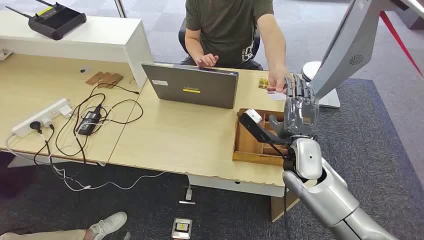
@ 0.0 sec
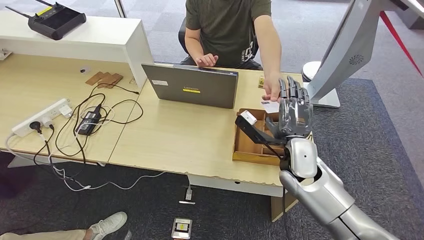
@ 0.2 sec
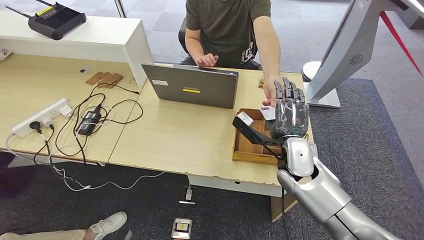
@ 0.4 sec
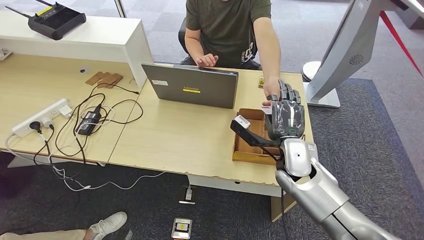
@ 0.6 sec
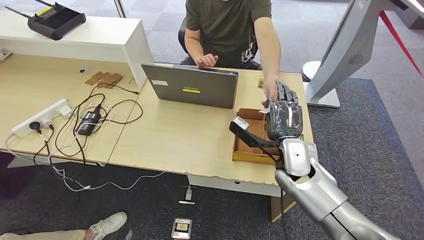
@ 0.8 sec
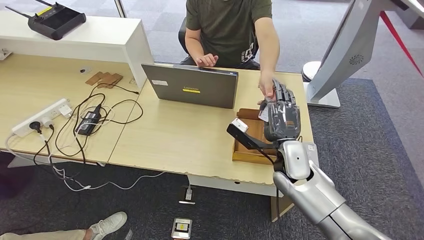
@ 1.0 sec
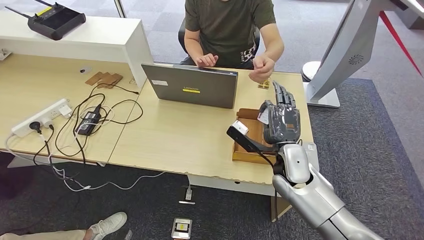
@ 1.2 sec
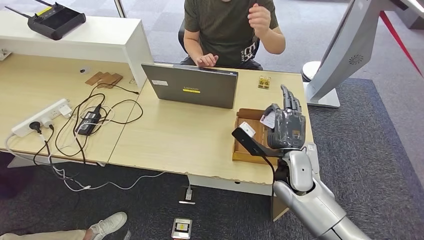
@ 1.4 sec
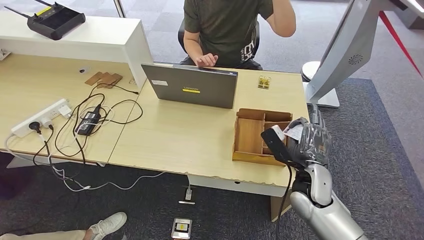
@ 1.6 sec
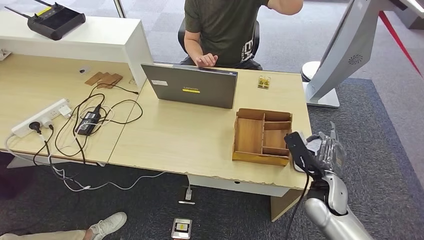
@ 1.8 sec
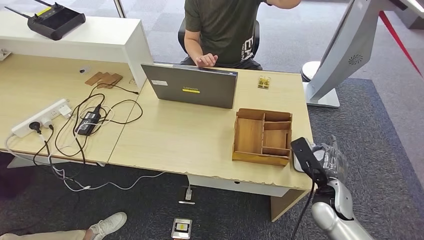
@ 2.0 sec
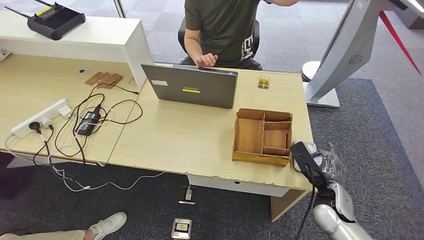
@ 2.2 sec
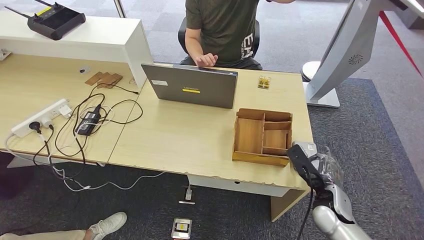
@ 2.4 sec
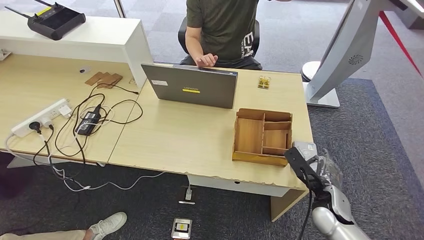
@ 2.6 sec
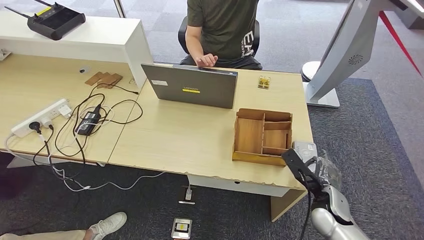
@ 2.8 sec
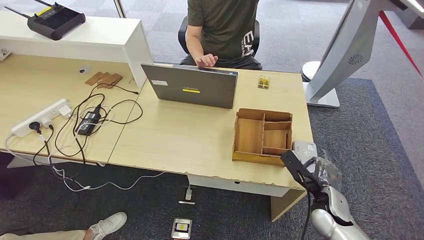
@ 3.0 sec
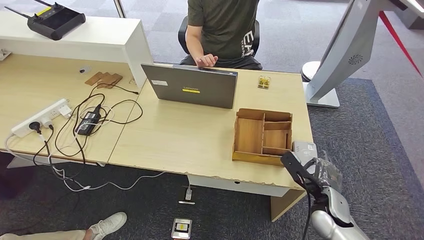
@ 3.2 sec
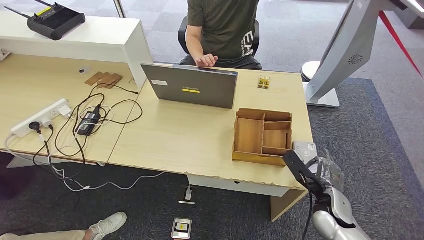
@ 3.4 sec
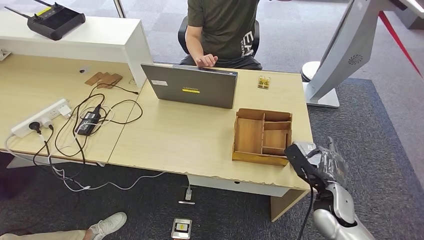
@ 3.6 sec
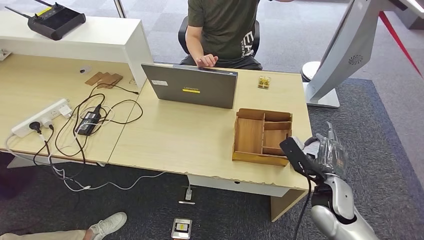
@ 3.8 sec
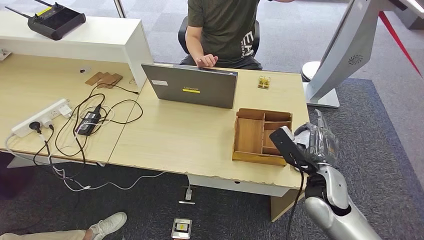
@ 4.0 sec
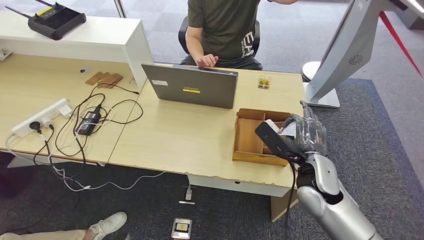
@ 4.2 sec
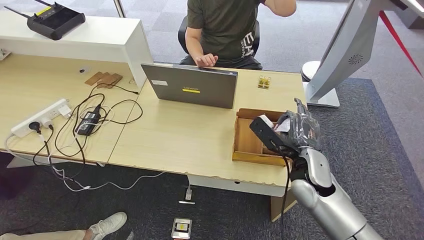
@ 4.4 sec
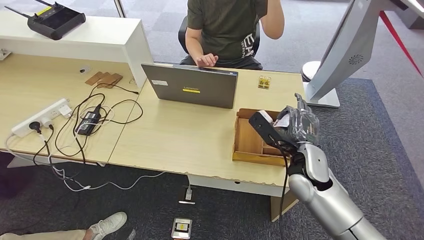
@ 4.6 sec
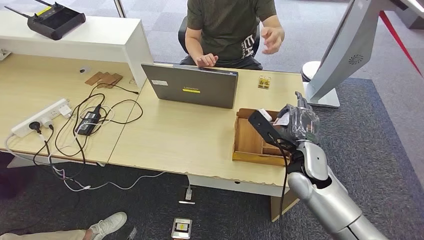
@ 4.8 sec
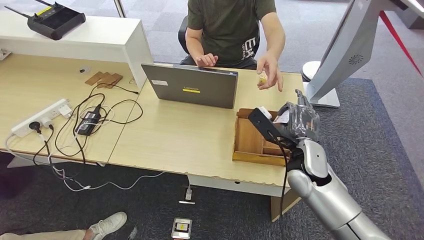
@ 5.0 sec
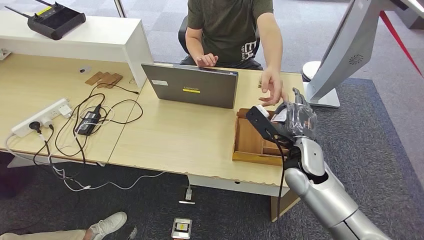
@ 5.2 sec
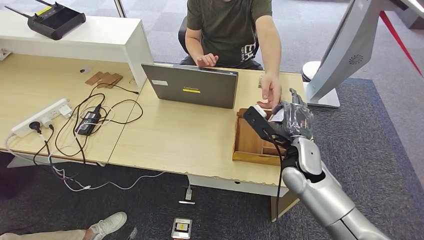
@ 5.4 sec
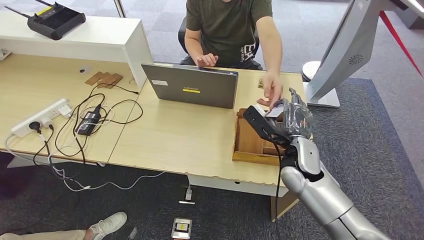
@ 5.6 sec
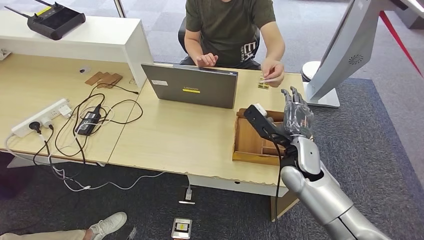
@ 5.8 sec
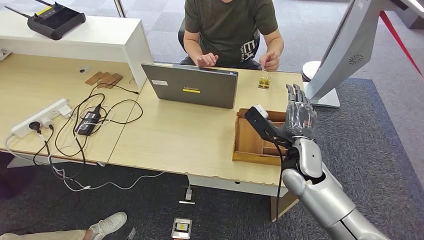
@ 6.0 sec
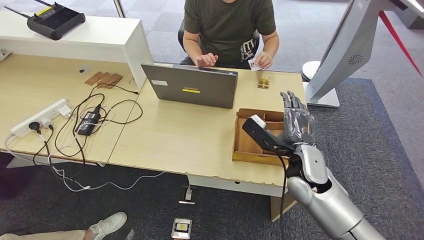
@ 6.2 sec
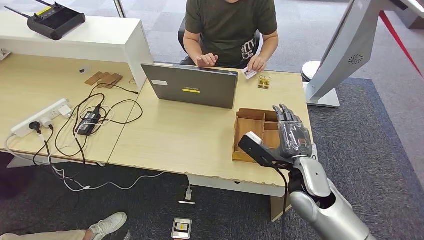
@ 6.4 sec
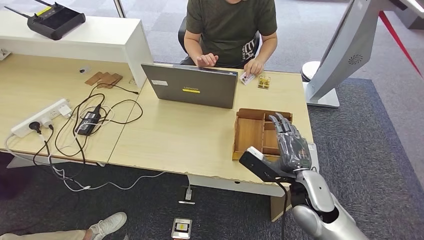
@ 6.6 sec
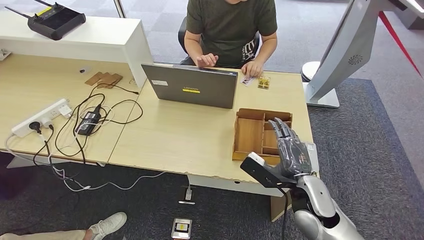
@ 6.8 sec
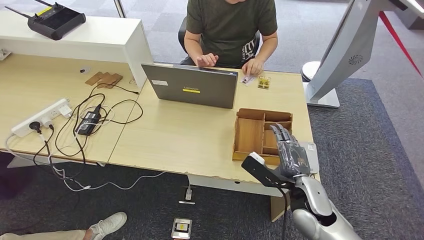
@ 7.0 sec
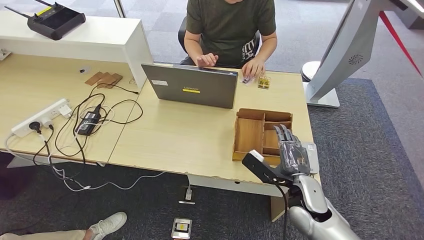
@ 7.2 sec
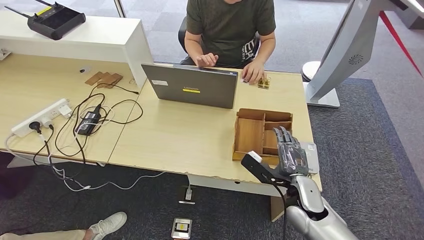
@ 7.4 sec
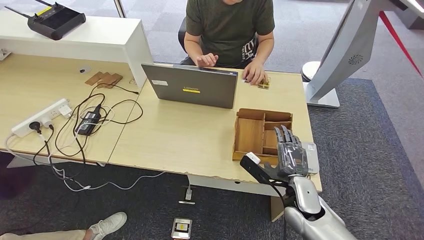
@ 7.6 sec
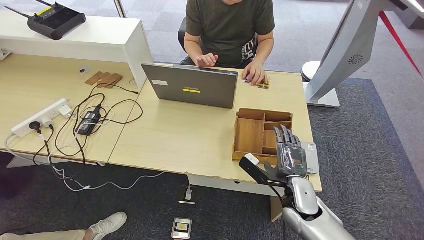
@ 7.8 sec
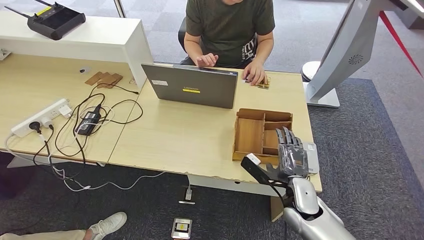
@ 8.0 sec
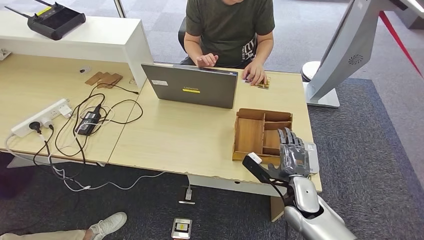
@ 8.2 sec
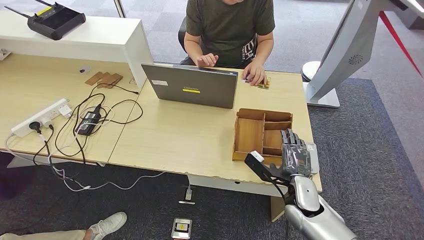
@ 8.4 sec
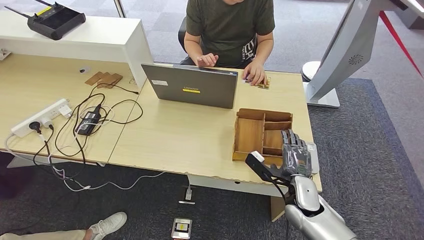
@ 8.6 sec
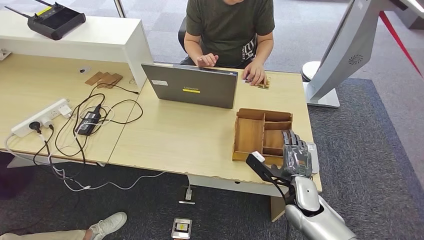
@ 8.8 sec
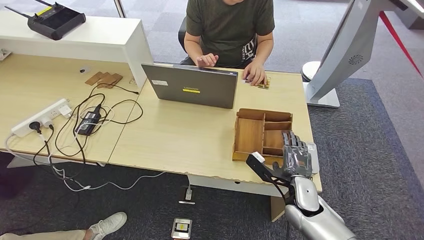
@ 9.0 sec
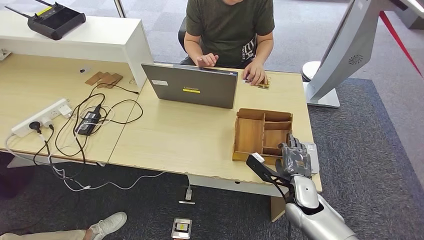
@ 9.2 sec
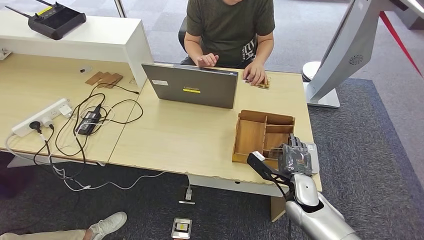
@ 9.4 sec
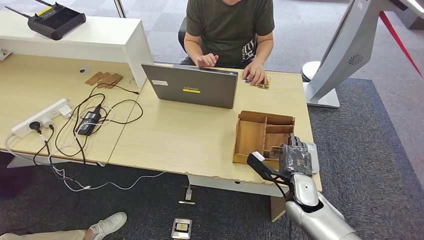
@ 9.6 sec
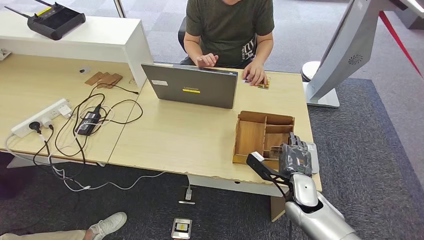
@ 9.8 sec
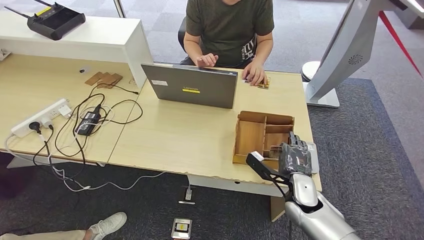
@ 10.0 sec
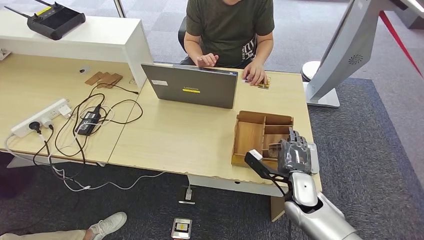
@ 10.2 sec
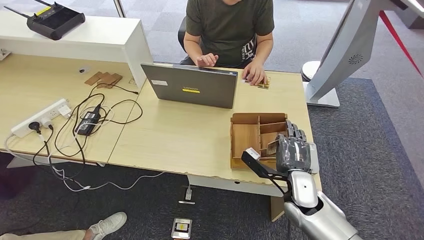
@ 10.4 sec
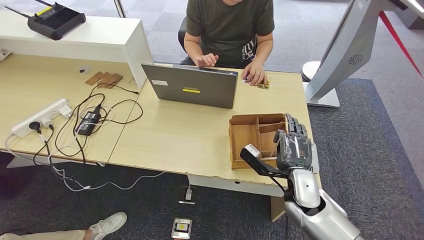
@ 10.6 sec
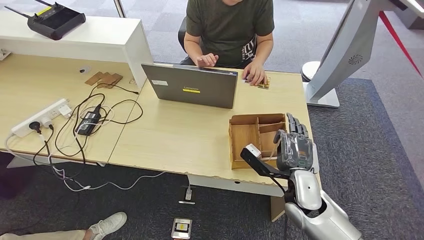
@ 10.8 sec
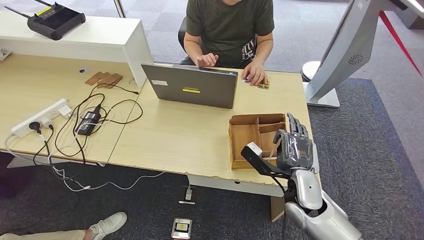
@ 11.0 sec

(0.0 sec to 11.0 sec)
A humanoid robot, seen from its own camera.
Step, 0.0 sec - 1.6 sec: Take the ID card from the person's hand.
Step, 1.8 sec - 3.8 sec: Place the ID card on the card reader.
Step, 4.2 sec - 6.8 sec: Hand the ID card to the person.
1.6 sec - 3.2 sec: The right hand goes roughly 10 cm to the right and downward.
3.2 sec - 4.8 sec: The right hand travels upward, to the left and forward by about 15 cm.
4.8 sec - 6.2 sec: There are only small adjustments of the hands.
6.2 sec - 7.8 sec: The right hand is displaced downward by approximately 10 cm.
7.8 sec - 9.4 sec: The hands stay close to where they were, moving slightly.
9.4 sec - 11.0 sec: The right hand is displaced upward by roughly 5 cm.

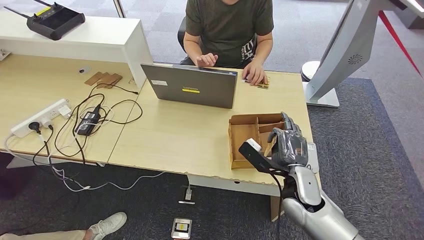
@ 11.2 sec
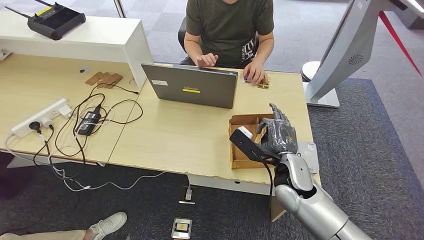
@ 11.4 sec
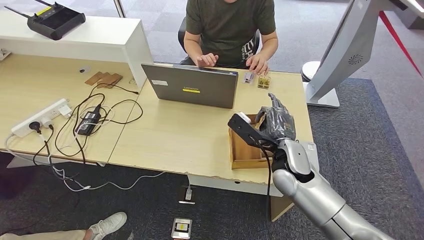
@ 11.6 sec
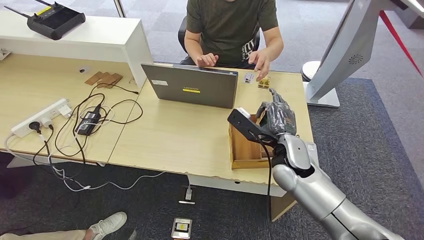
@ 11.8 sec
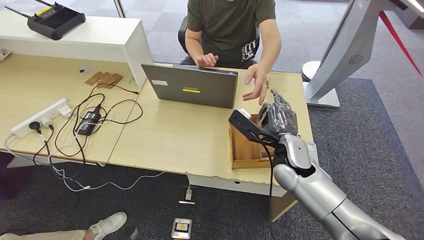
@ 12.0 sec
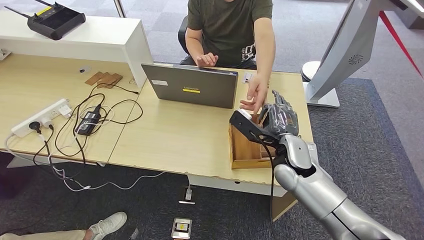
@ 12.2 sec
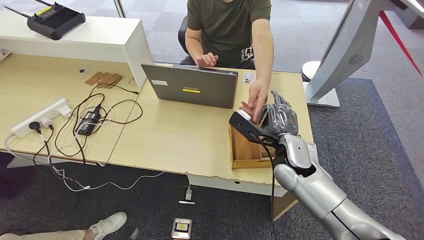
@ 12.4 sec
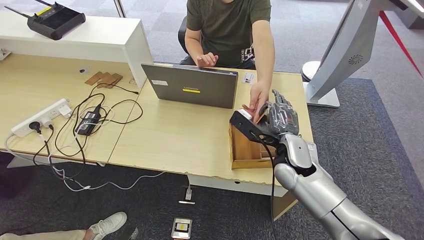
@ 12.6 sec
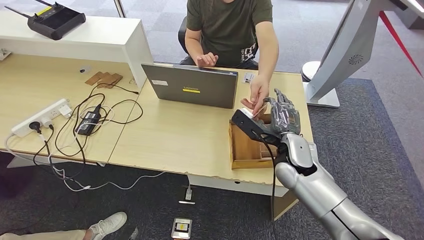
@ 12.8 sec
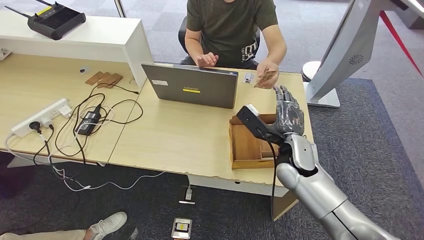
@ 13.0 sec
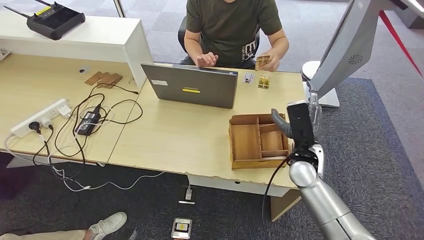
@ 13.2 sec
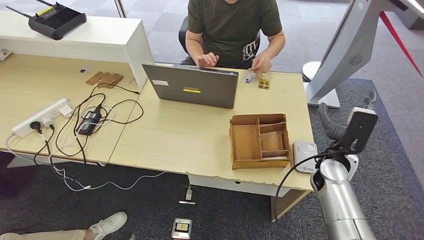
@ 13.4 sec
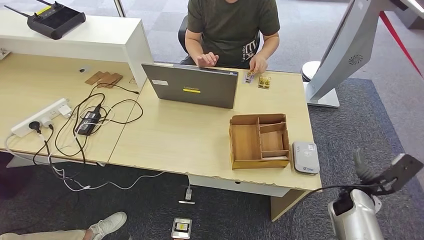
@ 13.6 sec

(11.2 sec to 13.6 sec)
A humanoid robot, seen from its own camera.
Step, 12.0 sec - 13.6 sec: Hand the room key to the person.
11.2 sec - 12.4 sec: The right hand moves forward and upward, approximately 10 cm.
12.4 sec - 13.6 sec: The right hand heads to the right and downward, covering roughly 20 cm.
